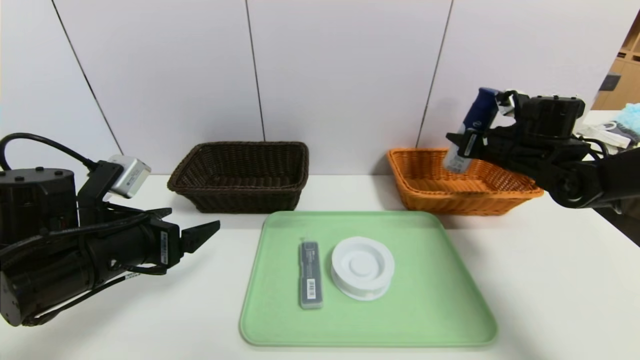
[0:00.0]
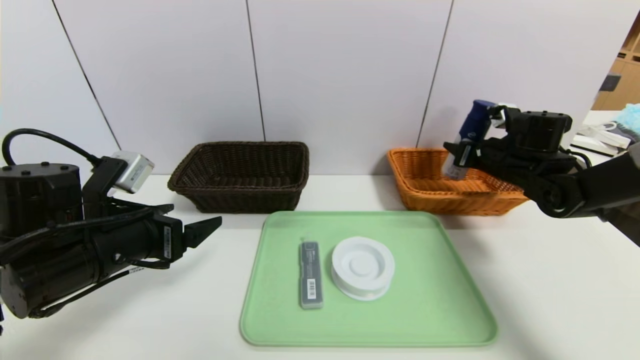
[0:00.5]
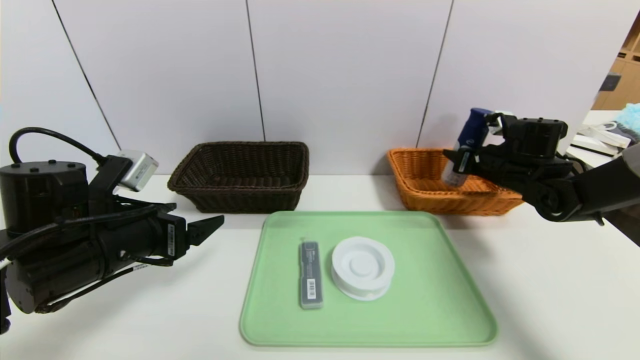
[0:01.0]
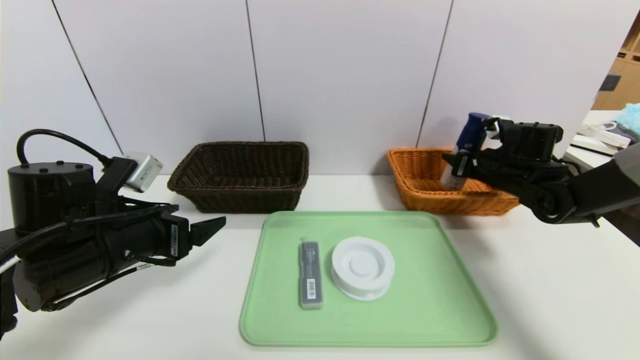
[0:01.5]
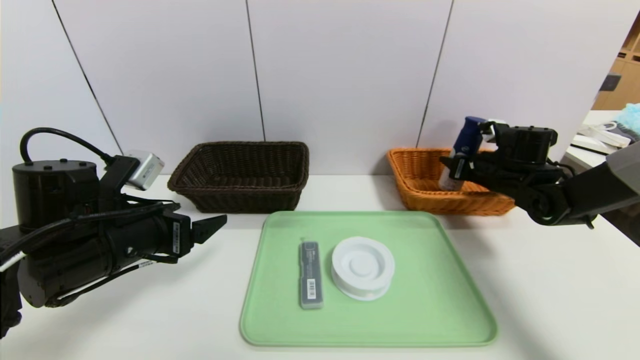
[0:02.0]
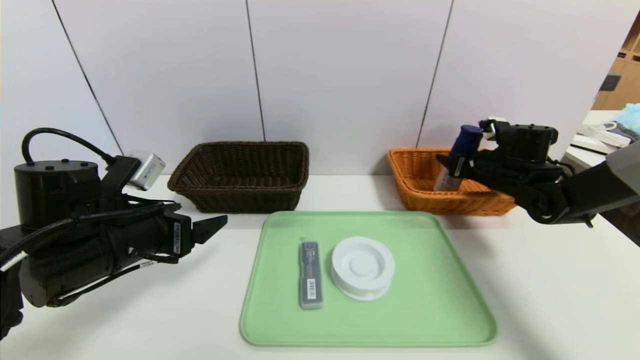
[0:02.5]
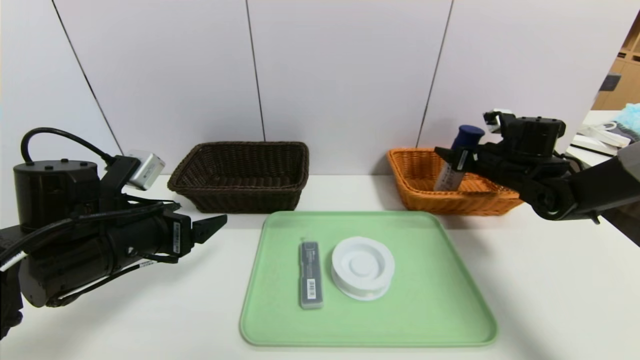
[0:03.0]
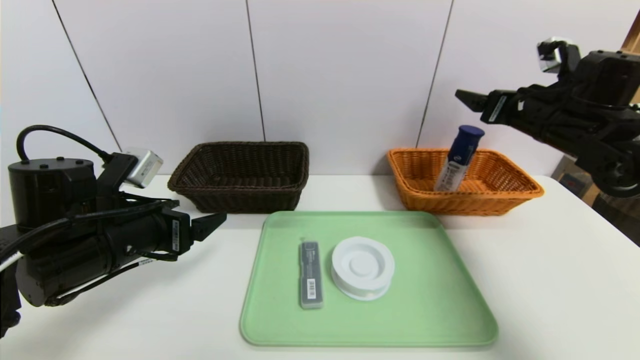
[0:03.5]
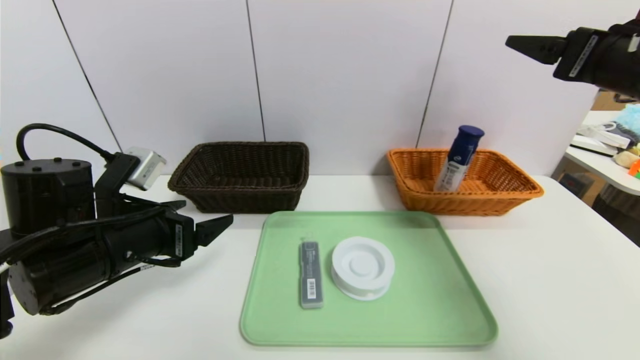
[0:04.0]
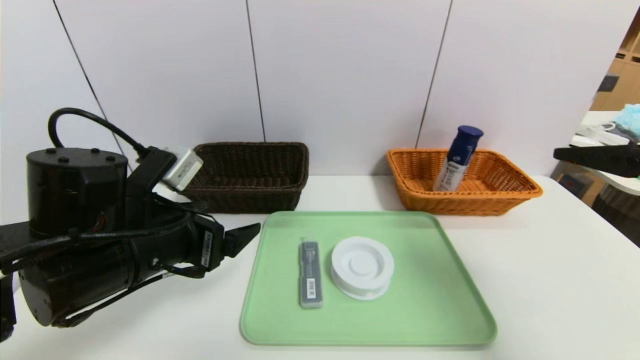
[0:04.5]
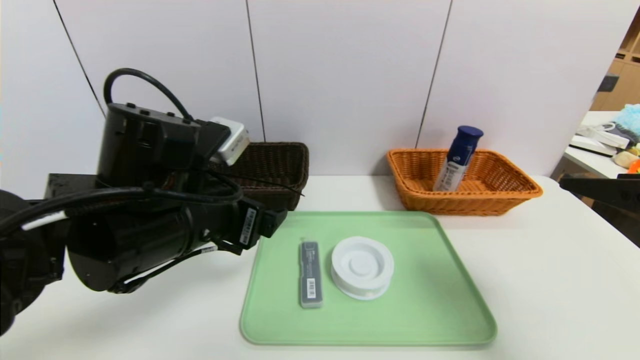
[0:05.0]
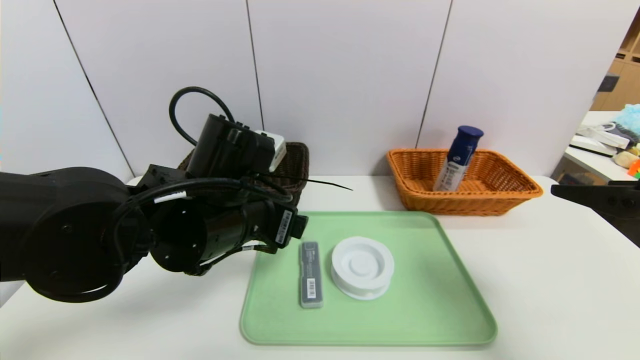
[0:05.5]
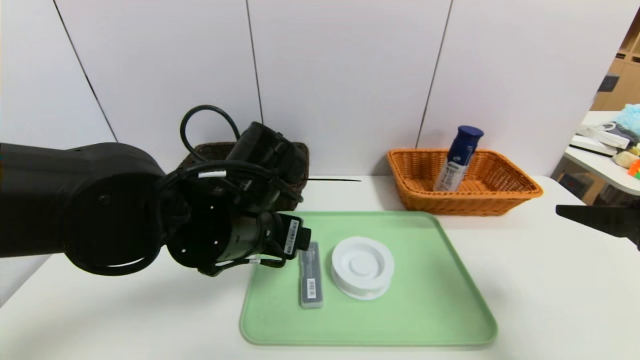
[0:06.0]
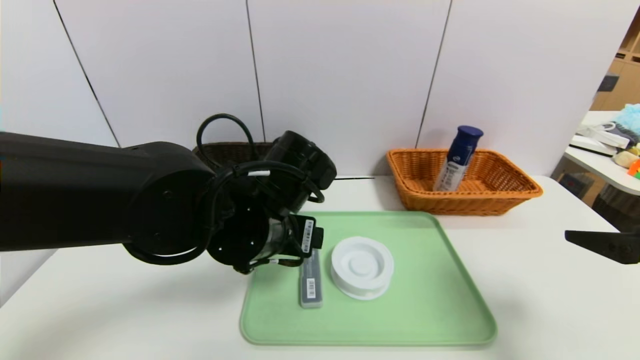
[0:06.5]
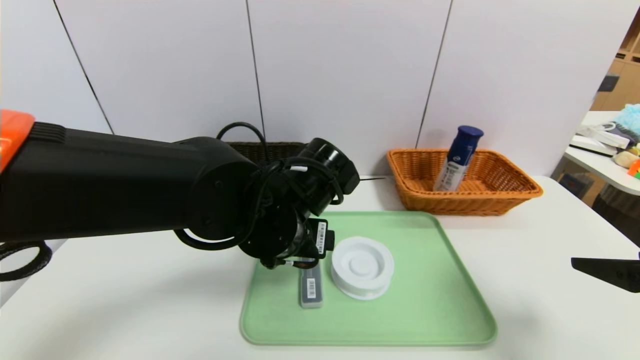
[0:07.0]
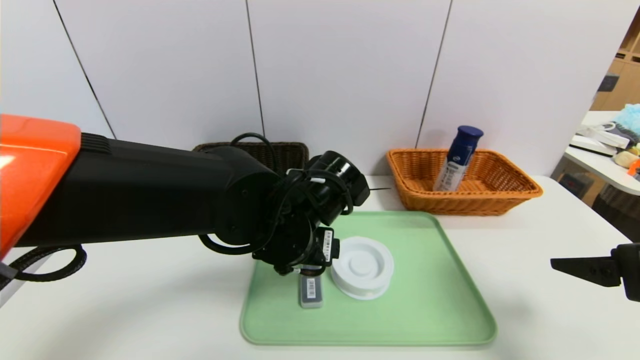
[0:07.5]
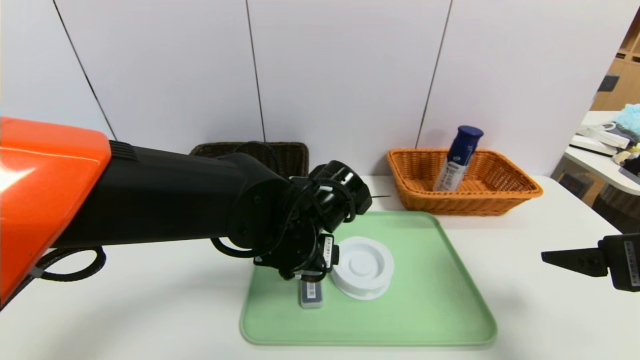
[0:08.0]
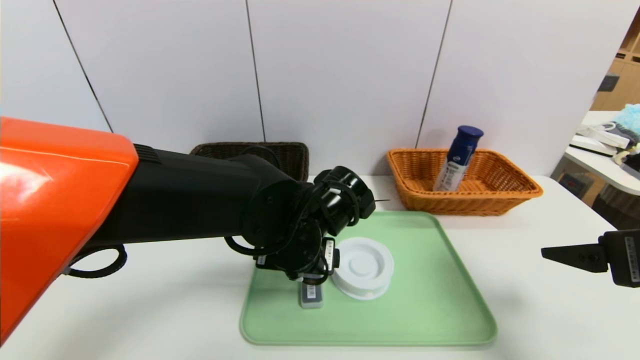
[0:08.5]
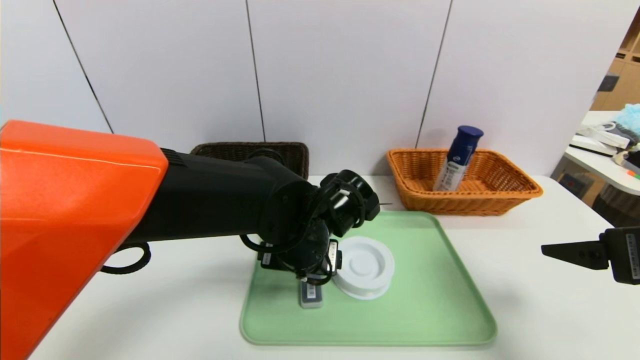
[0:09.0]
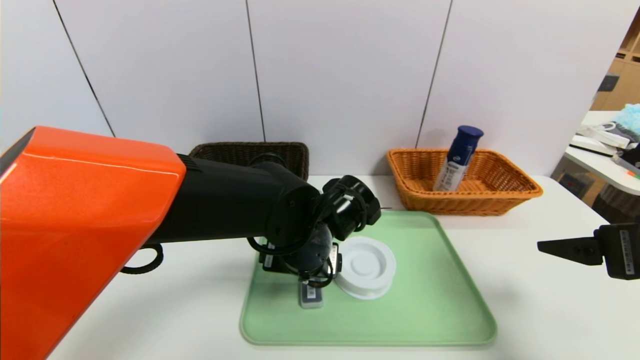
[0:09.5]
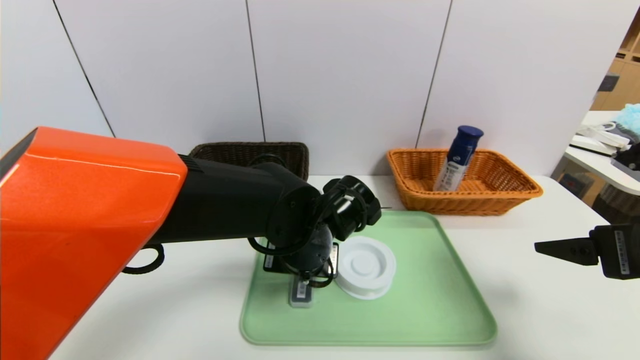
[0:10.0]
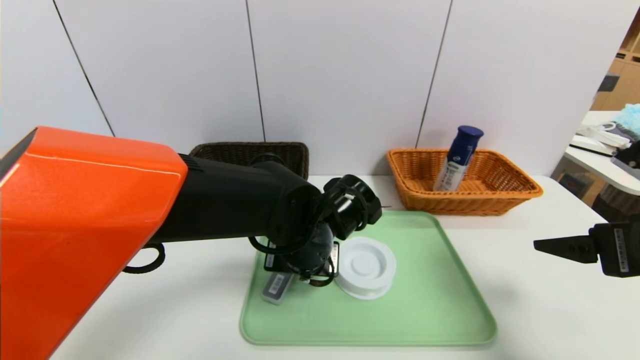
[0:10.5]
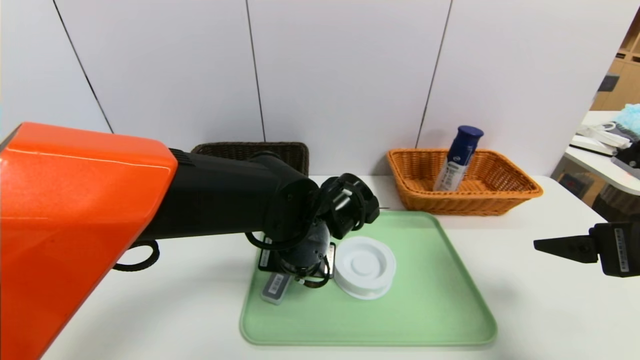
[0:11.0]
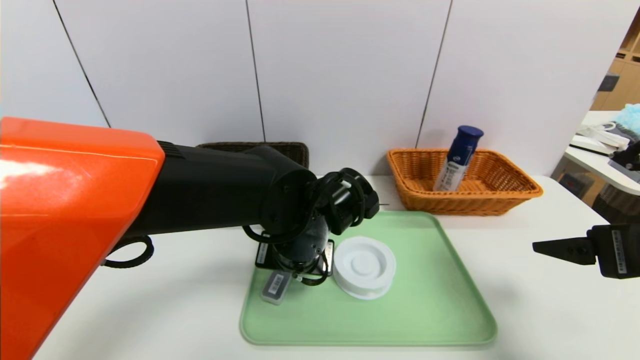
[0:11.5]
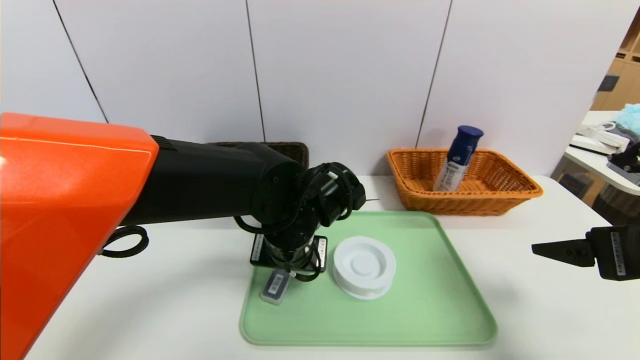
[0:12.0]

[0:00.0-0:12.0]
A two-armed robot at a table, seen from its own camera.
Task of the whole recording: place the food in the right basket with the right gripper, and place the non food items in the left basket with the left gripper.
Step, 0:00.0 to 0:02.5: Grasp the yogurt and put it in the right basket.
0:00.0 to 0:02.0: The right gripper heads downward, covering about 5 cm.
0:02.0 to 0:04.0: The right gripper shifts approximately 30 cm upward and backward, and opens up.
0:04.0 to 0:06.0: The right gripper shifts some 15 cm backward and downward. Meanwhile the left gripper shifts about 15 cm to the right.
0:06.0 to 0:08.0: The left gripper shifts approximately 5 cm to the right.
0:08.0 to 0:10.0: The left gripper closes.
0:10.0 to 0:12.0: The left gripper closes, then reopens.

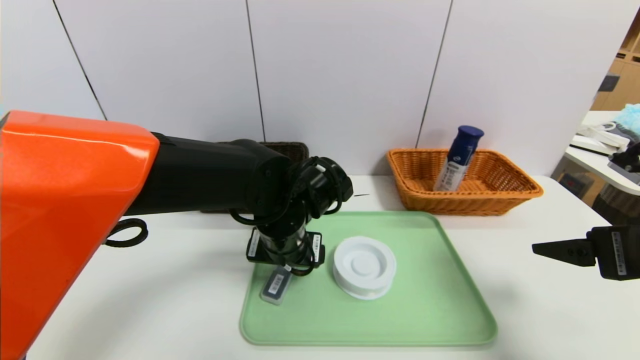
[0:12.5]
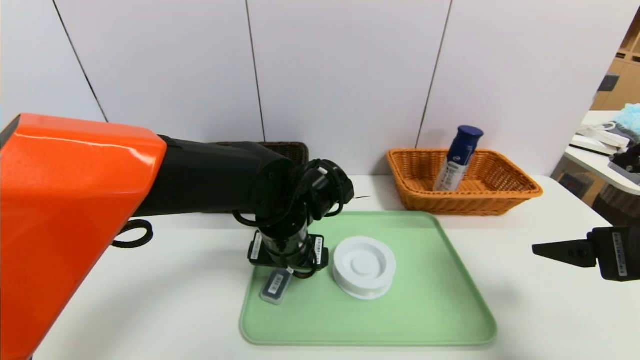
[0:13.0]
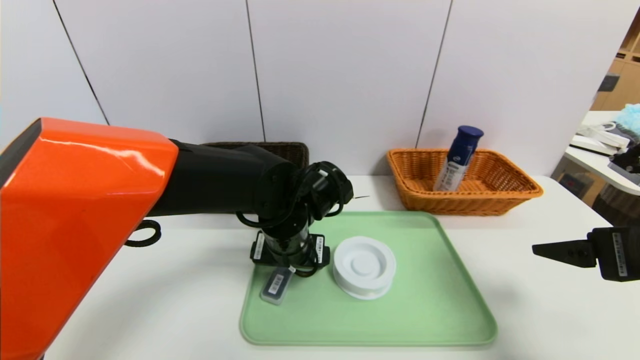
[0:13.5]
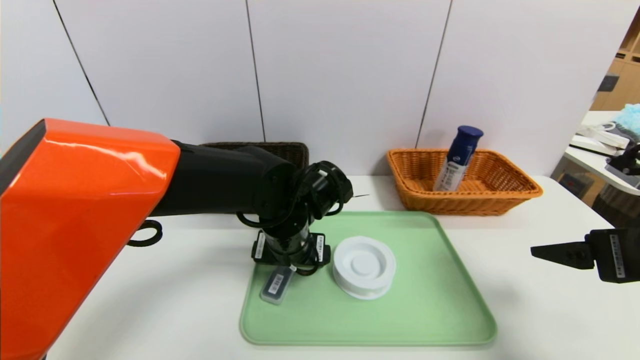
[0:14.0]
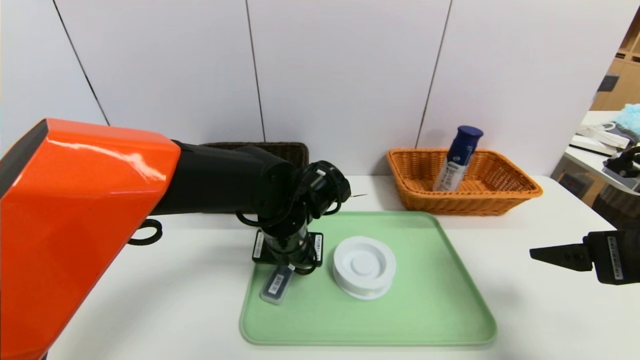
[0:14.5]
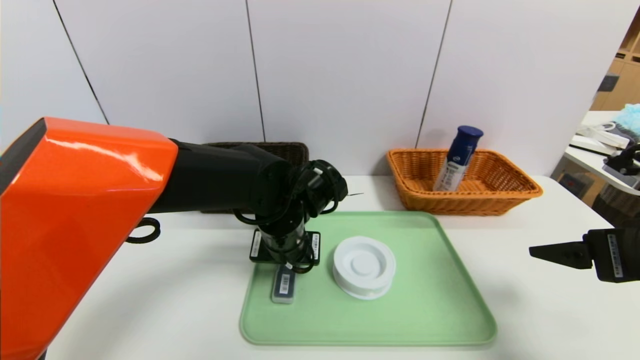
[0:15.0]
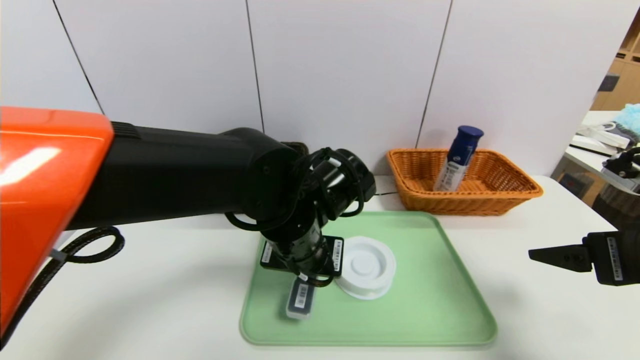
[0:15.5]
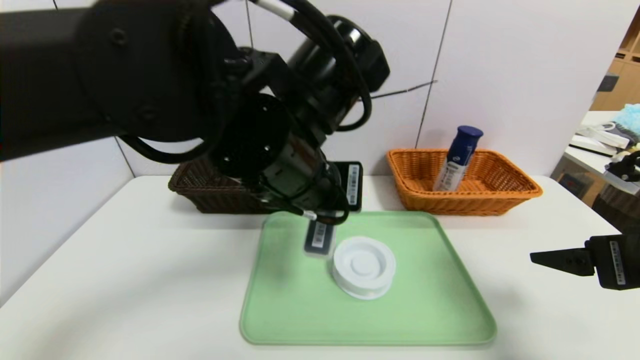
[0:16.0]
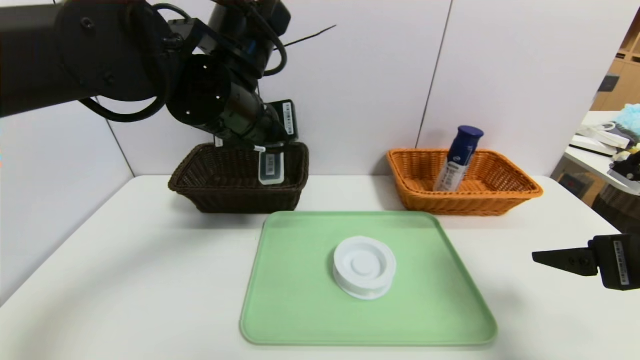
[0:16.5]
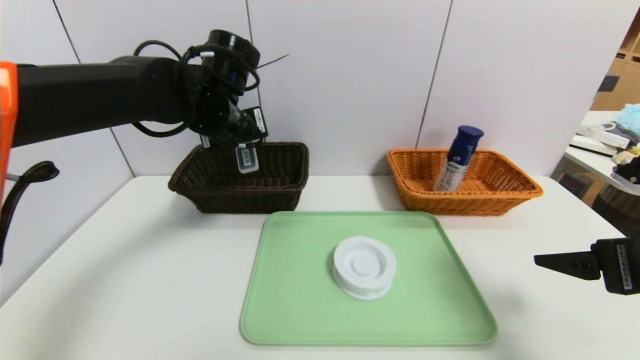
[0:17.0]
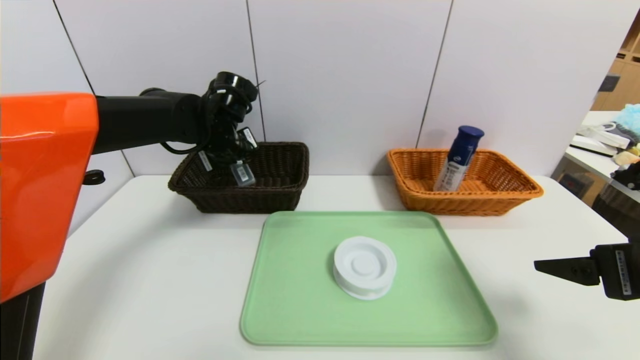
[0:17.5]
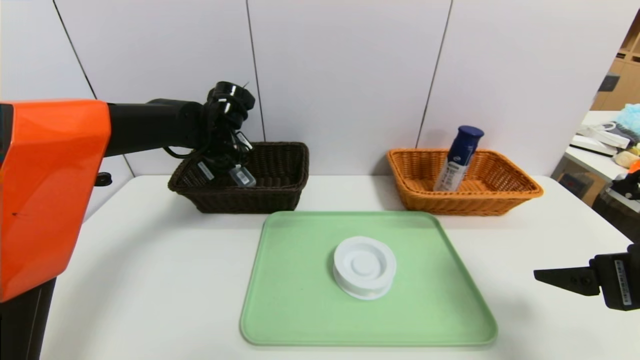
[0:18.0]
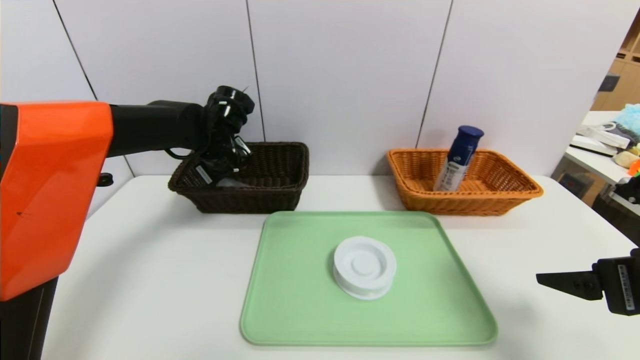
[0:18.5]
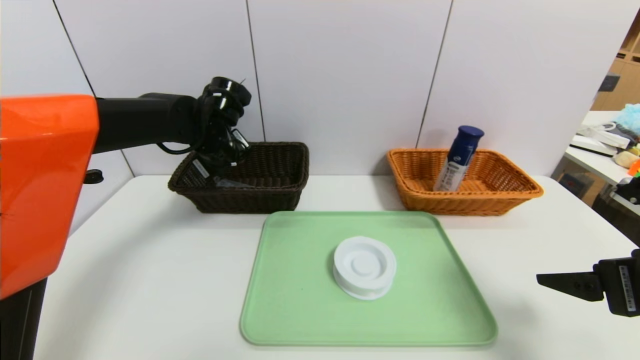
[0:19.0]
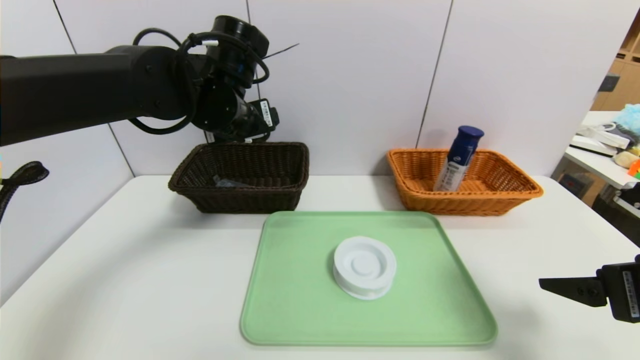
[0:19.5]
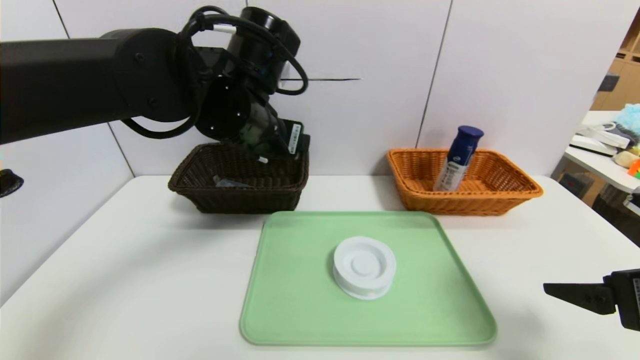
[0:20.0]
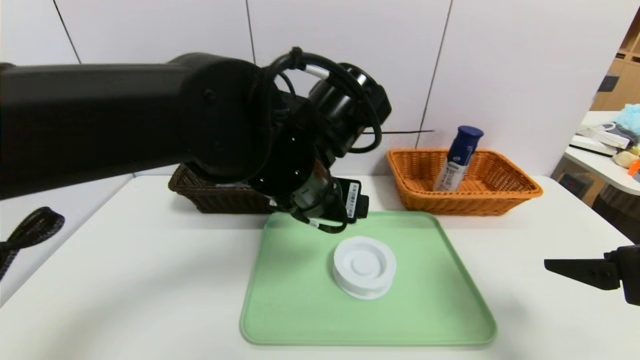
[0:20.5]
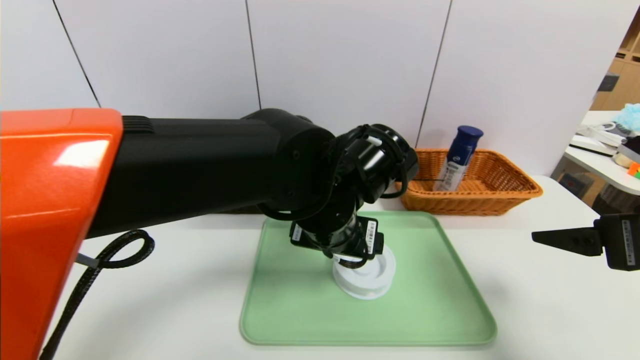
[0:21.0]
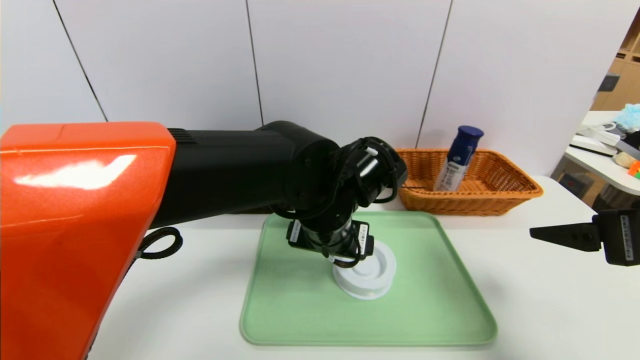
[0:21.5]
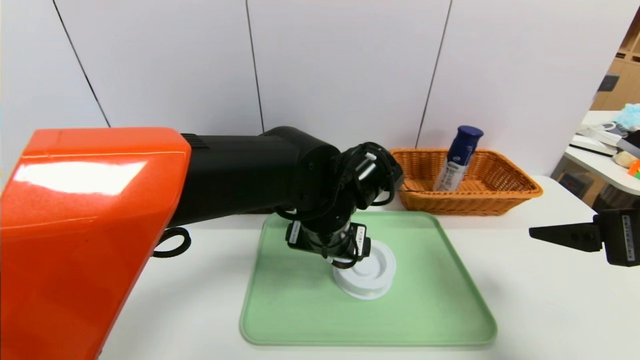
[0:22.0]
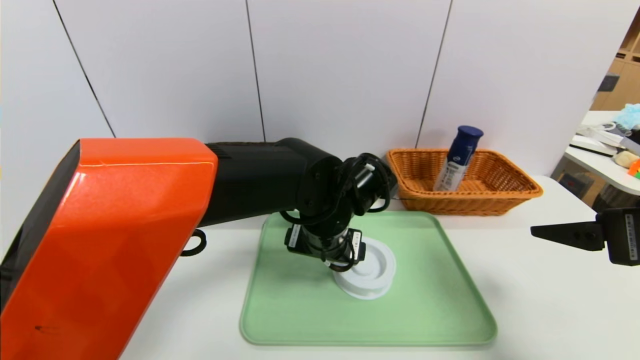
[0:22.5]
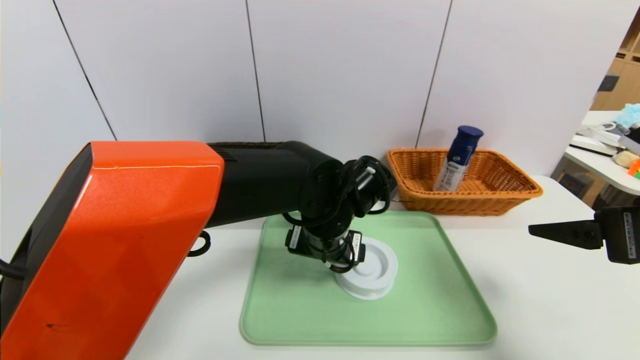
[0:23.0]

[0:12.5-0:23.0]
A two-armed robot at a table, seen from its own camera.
Task of the whole recording: place the food in the right basket with the right gripper, and place the non food items in the left basket with the left gripper.
Step, 0:12.5 to 0:19.0: Grasp the compass and put it in the left basket.
0:12.5 to 0:14.5: The left gripper closes.
0:14.5 to 0:16.5: The left gripper moves upward, approximately 15 cm.
0:16.5 to 0:19.0: The left gripper is displaced forward, downward and to the left by about 15 cm, and opens.
0:19.0 to 0:21.0: The left gripper goes approximately 25 cm to the right and backward.
0:21.0 to 0:23.0: The left gripper moves approximately 5 cm.
